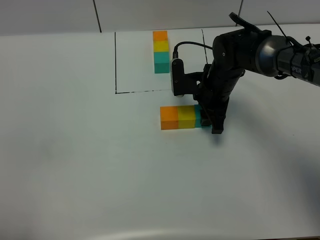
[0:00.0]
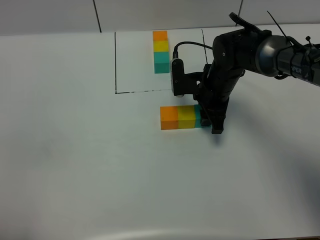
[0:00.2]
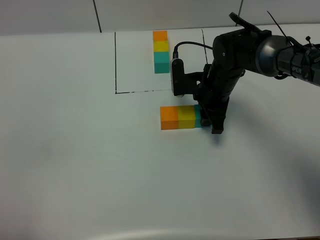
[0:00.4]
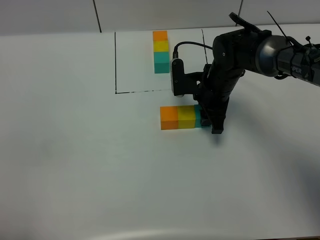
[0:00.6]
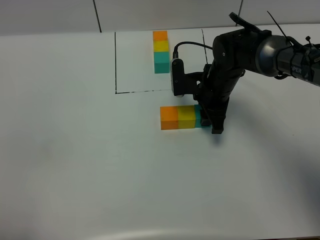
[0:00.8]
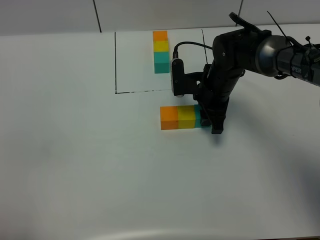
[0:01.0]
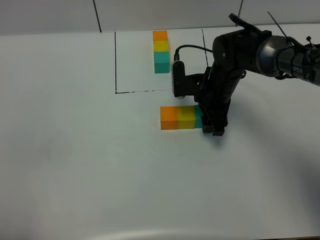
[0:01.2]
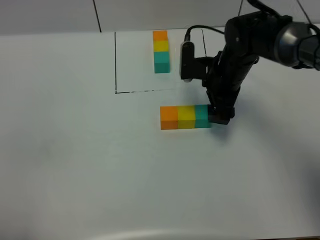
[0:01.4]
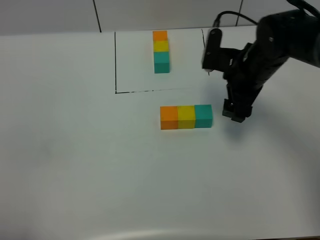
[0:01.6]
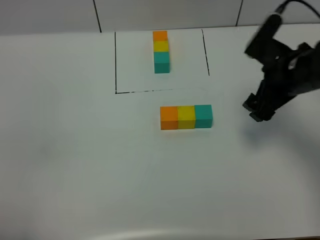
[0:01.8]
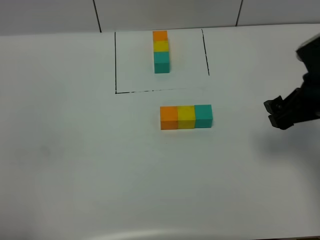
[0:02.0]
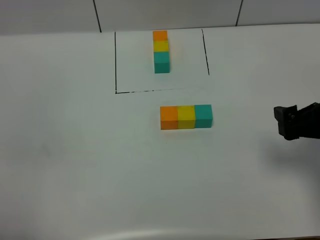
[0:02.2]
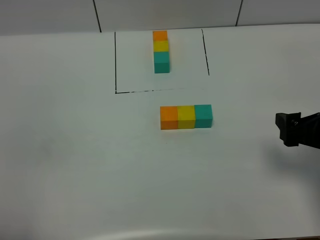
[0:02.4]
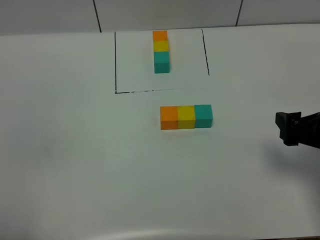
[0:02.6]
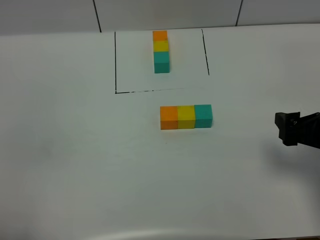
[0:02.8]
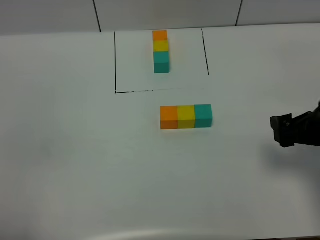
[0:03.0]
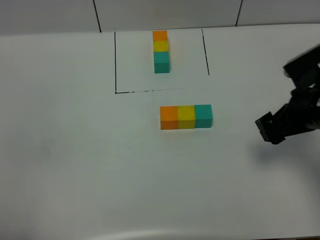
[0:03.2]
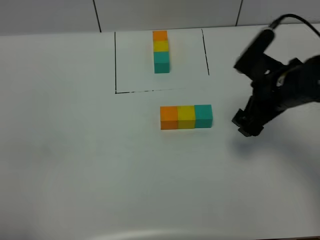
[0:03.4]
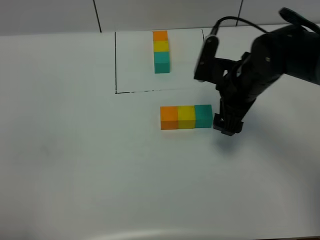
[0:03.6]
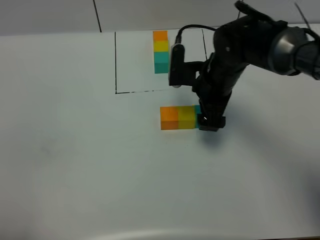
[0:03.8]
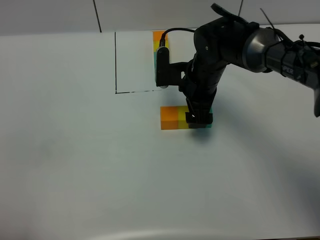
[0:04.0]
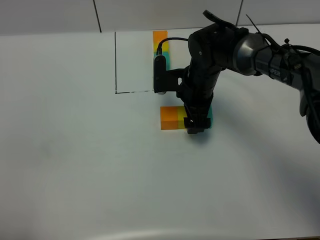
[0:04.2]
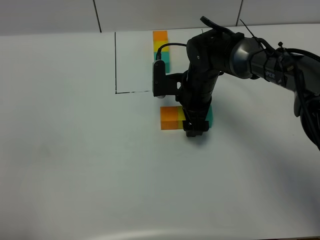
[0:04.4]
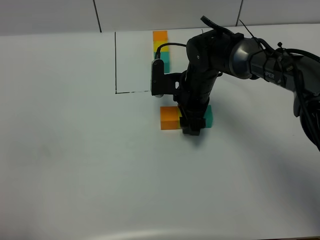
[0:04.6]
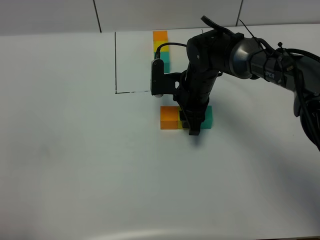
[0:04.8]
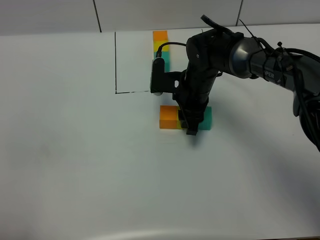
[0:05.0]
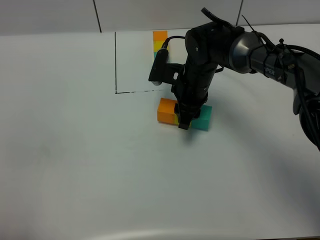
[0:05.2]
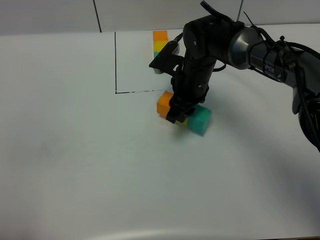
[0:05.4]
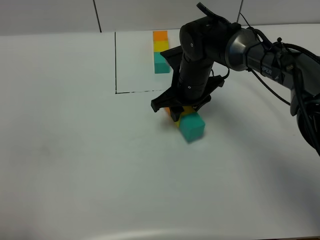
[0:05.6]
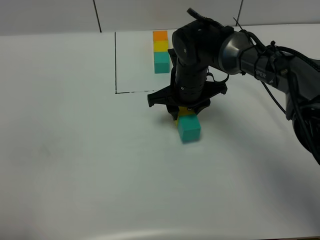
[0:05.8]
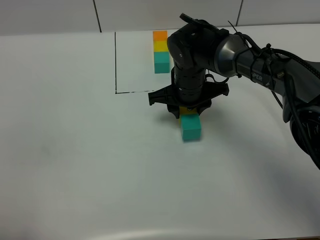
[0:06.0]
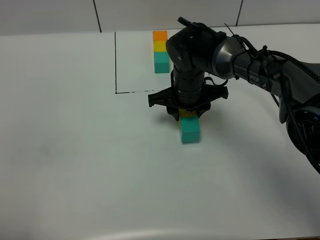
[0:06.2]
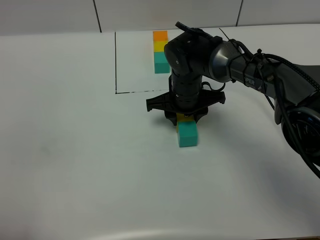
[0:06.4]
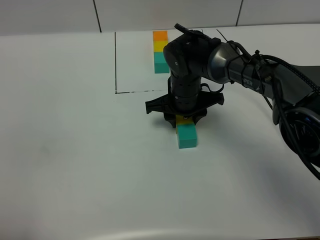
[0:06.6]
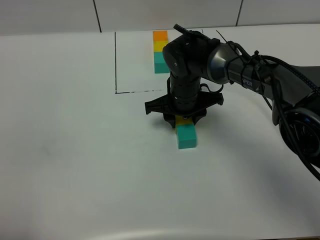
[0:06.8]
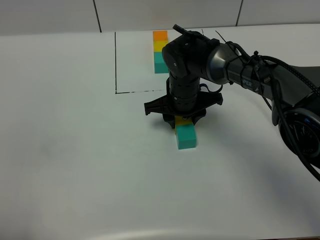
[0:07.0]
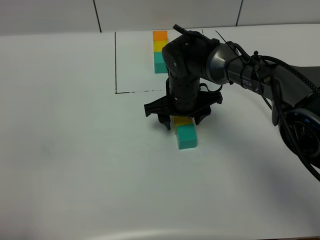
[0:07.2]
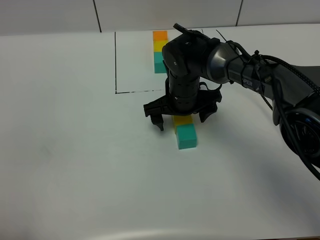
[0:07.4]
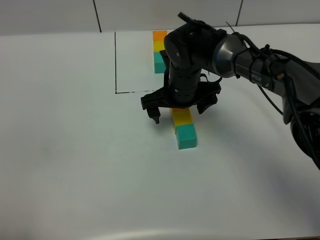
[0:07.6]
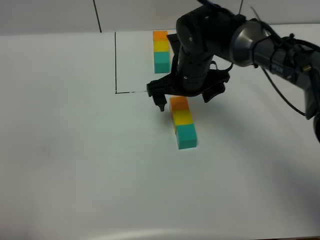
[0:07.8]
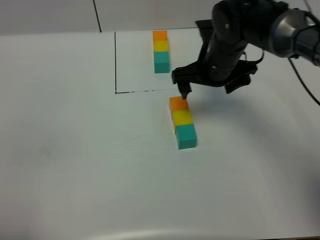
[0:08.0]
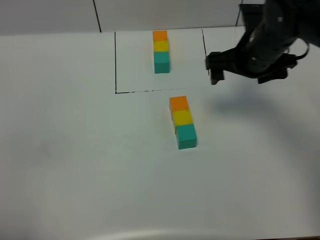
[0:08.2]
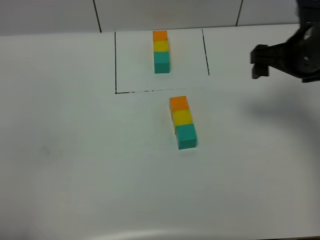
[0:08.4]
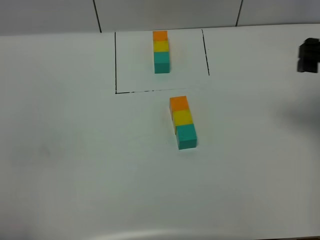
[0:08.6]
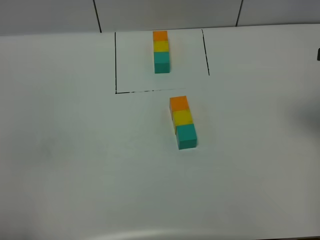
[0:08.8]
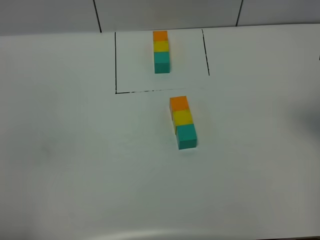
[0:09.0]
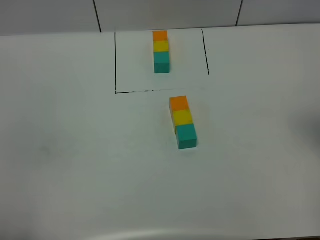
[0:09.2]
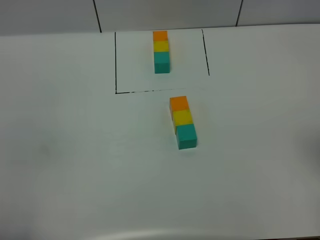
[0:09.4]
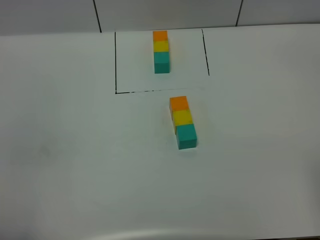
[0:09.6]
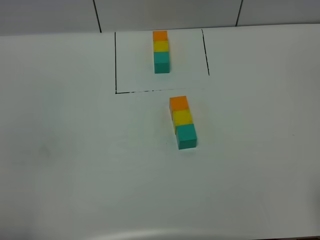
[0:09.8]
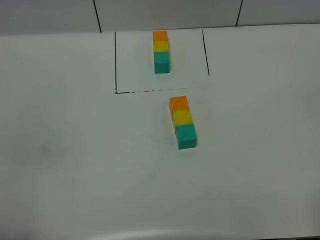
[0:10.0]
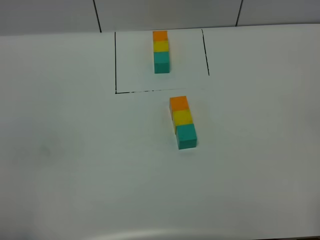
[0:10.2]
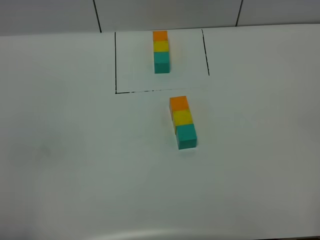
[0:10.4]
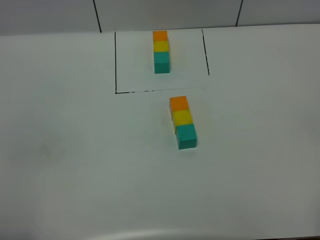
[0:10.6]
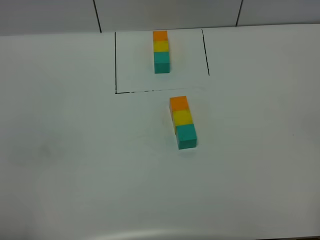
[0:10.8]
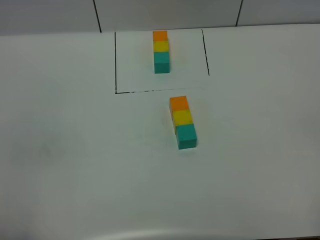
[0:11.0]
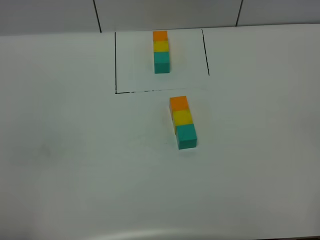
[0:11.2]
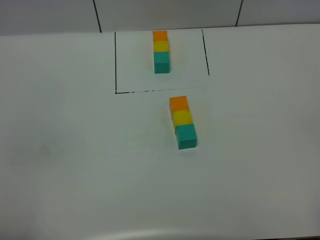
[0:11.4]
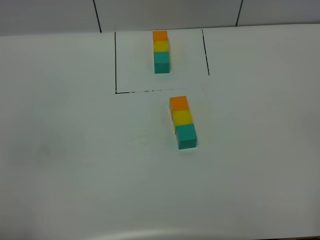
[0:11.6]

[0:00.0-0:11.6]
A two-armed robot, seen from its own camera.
Task of the whole recording: According to the building block template in front, assemble the scattered blocks together.
Step, 0:01.8 to 0:07.8: Adjust the pose of the building blocks.
0:00.0 to 0:01.4: The right gripper changes place by some 5 cm, and opens its fingers.
0:01.4 to 0:02.8: The right gripper moves backward and to the right, some 25 cm.
0:02.8 to 0:04.4: The right gripper moves to the left and forward, some 25 cm.
0:04.4 to 0:05.8: The right gripper closes.
0:05.8 to 0:07.2: The right gripper opens up.
0:07.2 to 0:08.8: The right gripper heads to the right and upward, covering approximately 35 cm, and opens.
0:10.2 to 0:11.6: Both grippers stay about where they are.

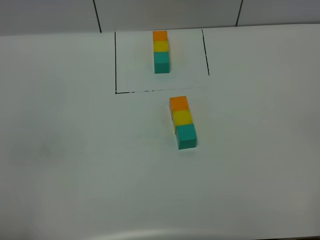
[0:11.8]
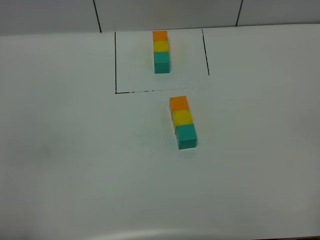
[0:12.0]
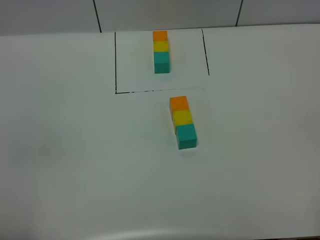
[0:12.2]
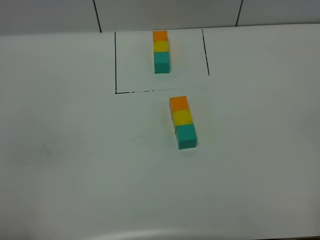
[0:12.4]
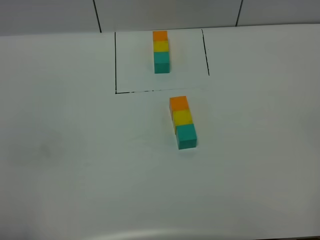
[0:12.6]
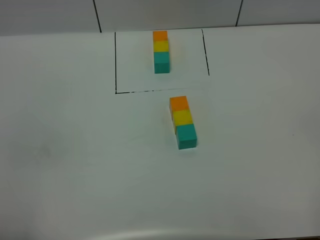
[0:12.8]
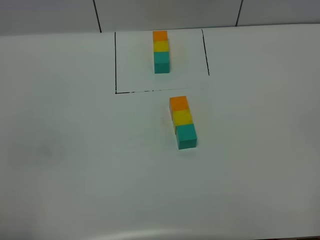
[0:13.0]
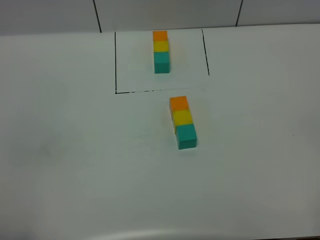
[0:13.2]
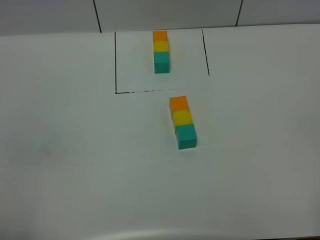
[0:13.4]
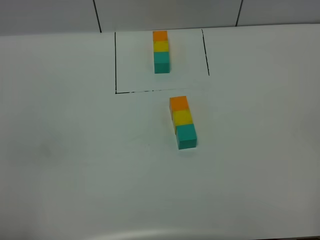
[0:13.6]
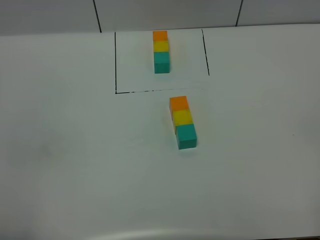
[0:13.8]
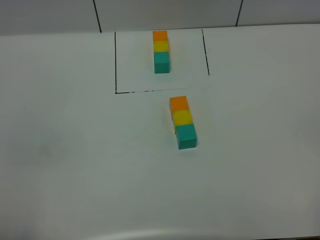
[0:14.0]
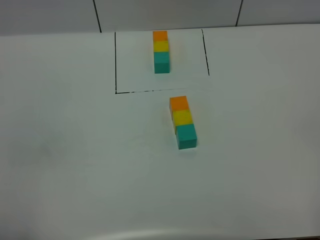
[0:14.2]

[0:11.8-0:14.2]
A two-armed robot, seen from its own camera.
Task of the whole recording: According to the building block template in front, assemble the scattered blocks together.
0:11.8 to 0:14.2: Both grippers stay put.
